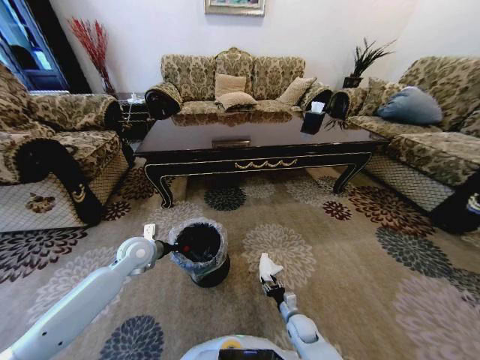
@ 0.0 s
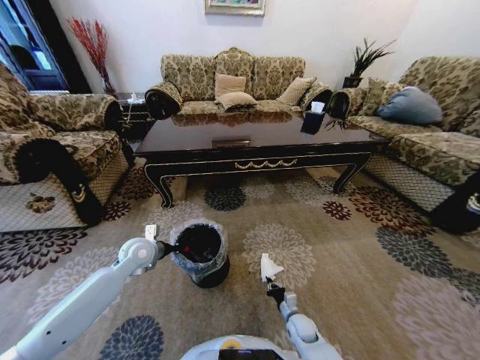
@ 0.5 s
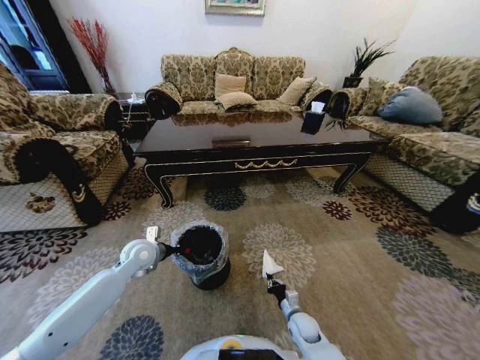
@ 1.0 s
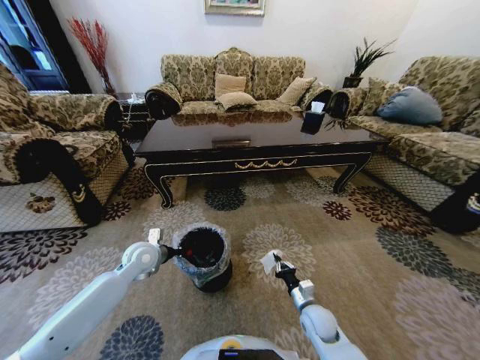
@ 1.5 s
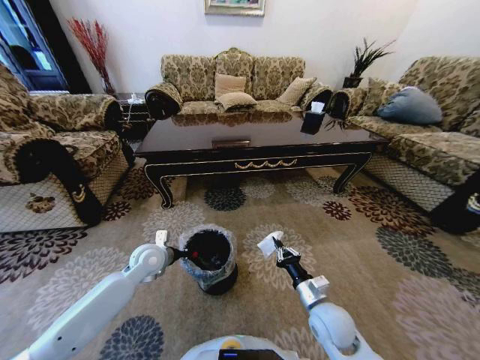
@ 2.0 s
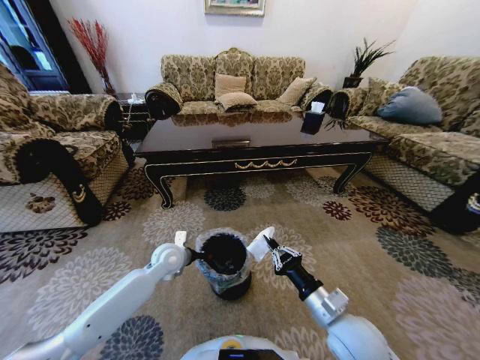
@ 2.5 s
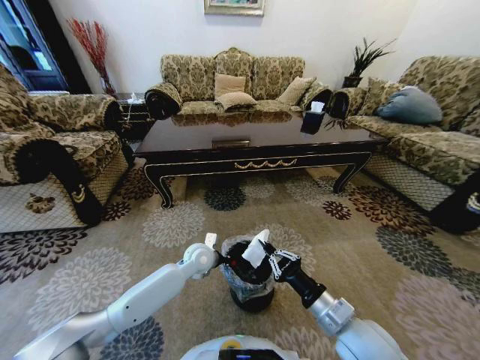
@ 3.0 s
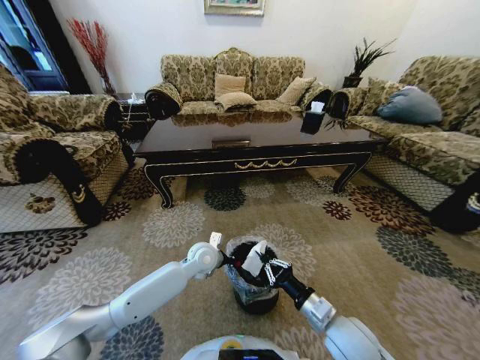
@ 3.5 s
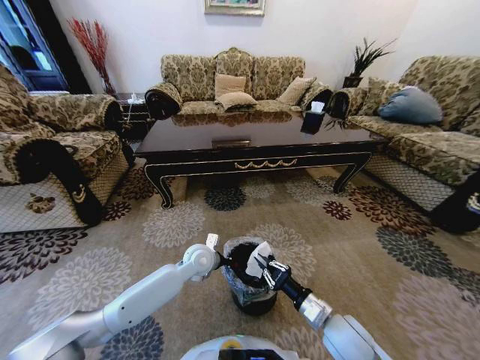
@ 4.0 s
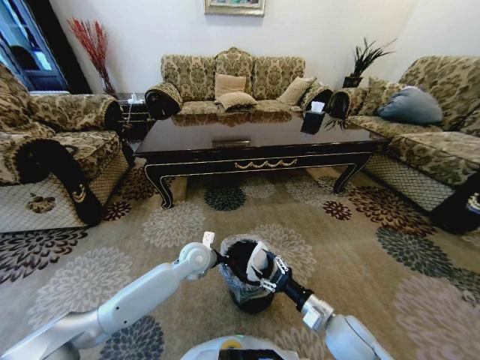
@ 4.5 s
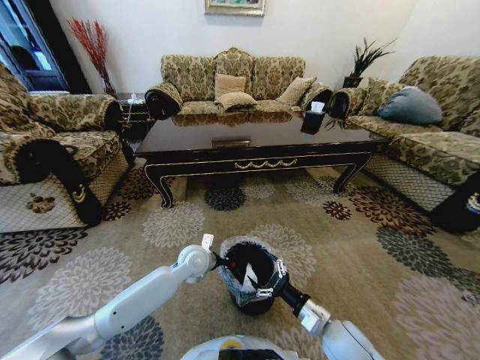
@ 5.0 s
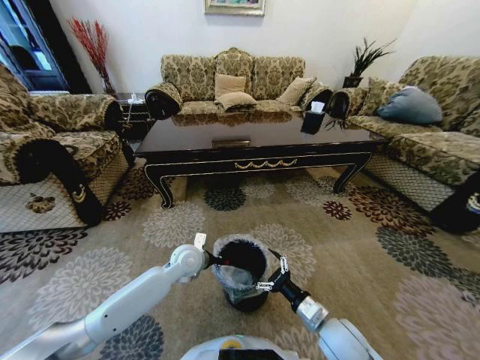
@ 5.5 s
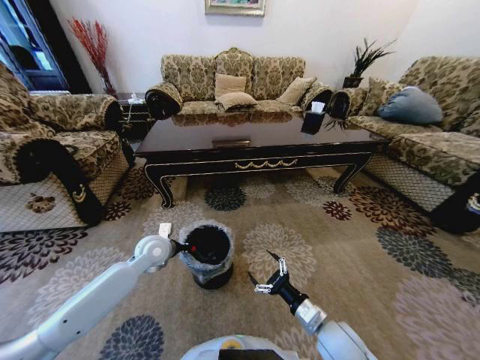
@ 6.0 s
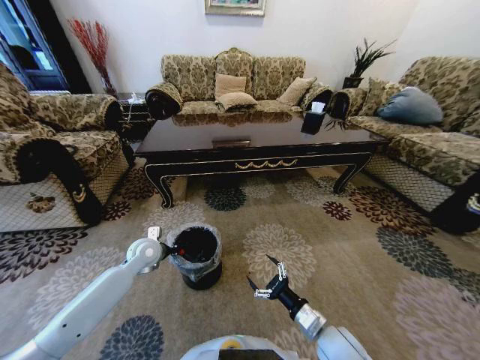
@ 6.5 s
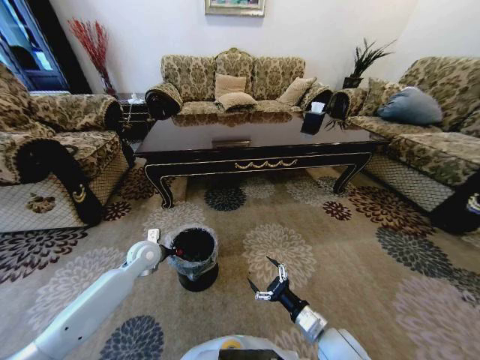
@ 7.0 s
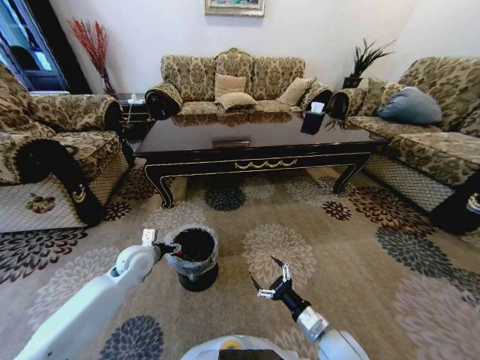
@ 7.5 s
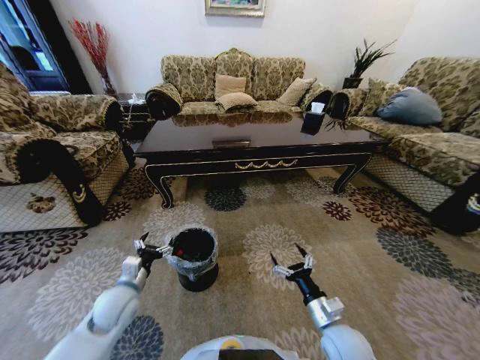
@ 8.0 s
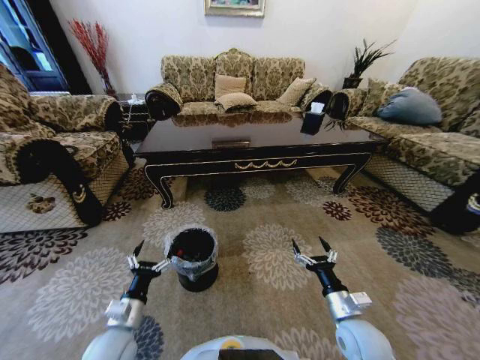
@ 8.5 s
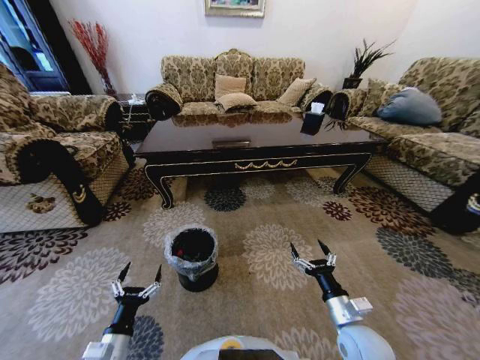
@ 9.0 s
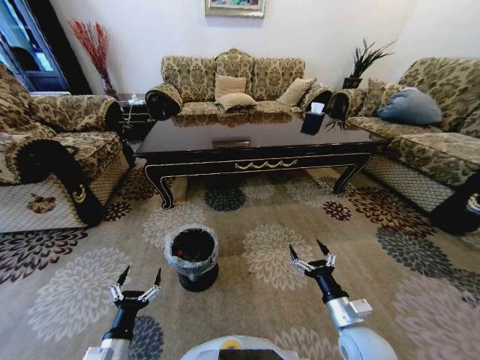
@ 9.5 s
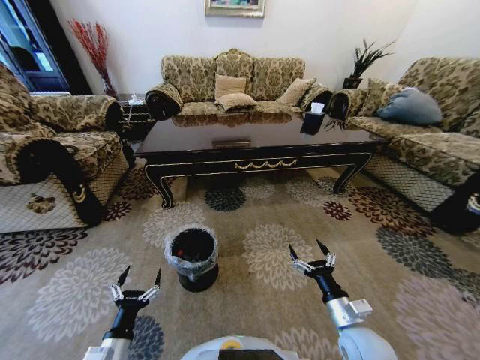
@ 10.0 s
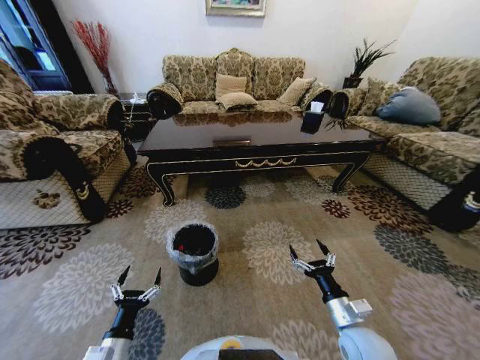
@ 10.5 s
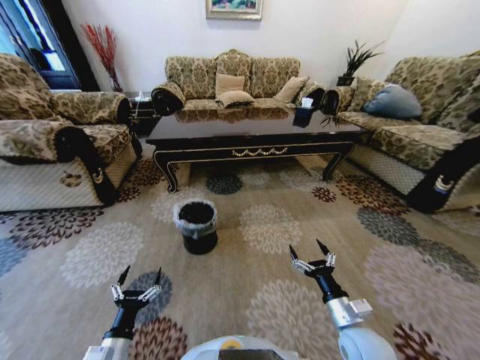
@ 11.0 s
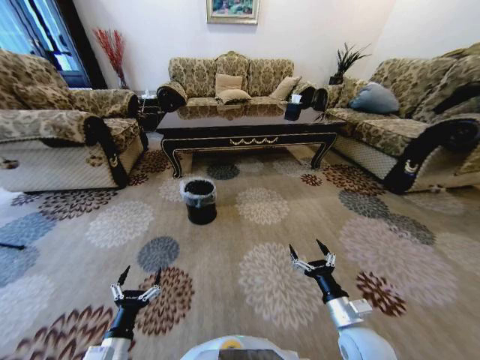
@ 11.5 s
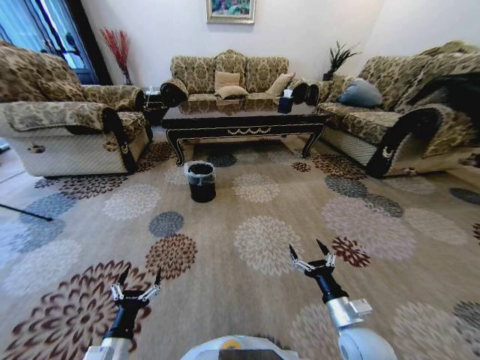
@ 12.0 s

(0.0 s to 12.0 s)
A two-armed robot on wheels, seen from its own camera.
Task of the whole recording: Move to the front of the table and pick up the trash from the floor, then place it into the trash bin.
0.0 s - 2.0 s: The right gripper moves upward, roughly 20 cm, and closes.
2.0 s - 4.0 s: The right gripper travels upward and back again, some 10 cm each way; the left gripper is displaced to the right by some 15 cm.
4.0 s - 6.0 s: The right gripper opens its fingers; the left gripper shifts about 15 cm to the left.
6.0 s - 8.0 s: The left gripper shifts roughly 15 cm backward, and opens up.
8.0 s - 10.0 s: The left gripper goes about 15 cm backward.

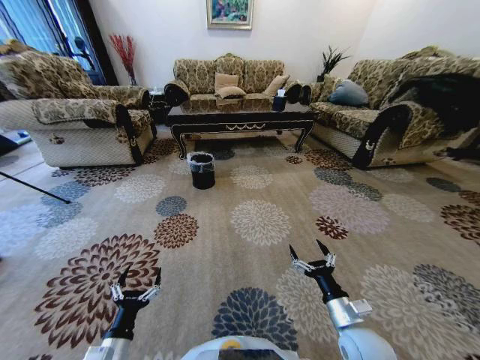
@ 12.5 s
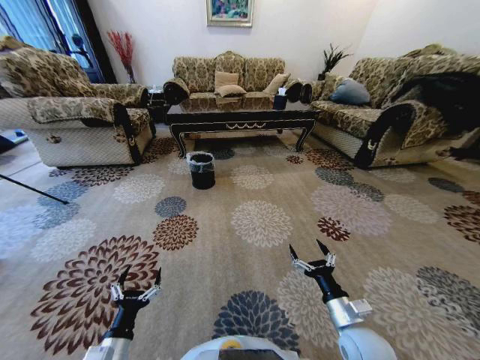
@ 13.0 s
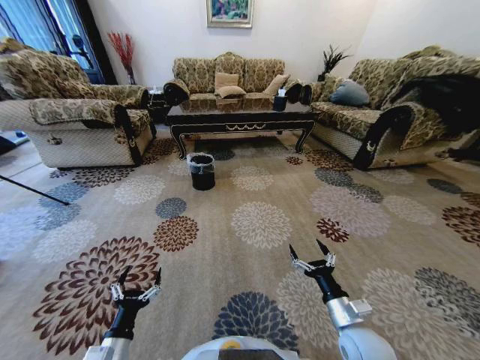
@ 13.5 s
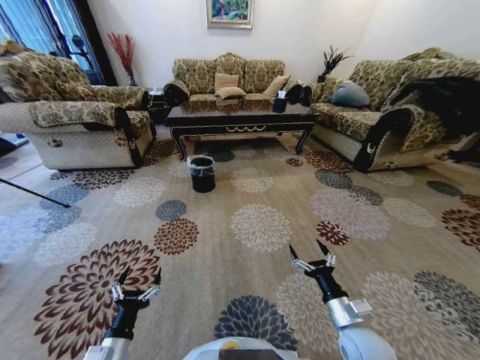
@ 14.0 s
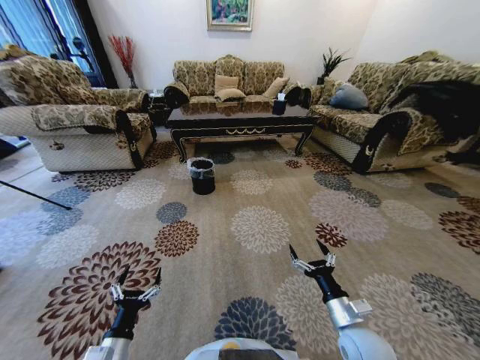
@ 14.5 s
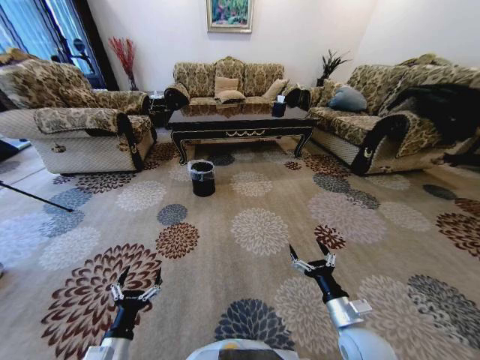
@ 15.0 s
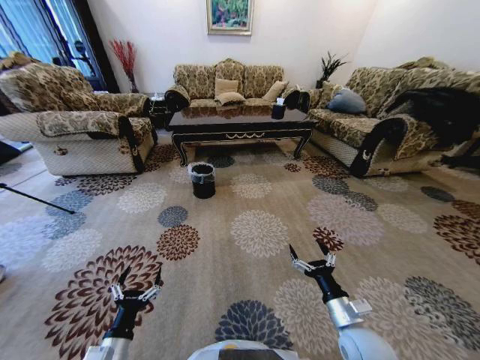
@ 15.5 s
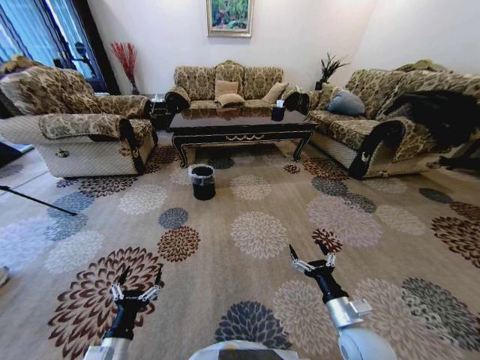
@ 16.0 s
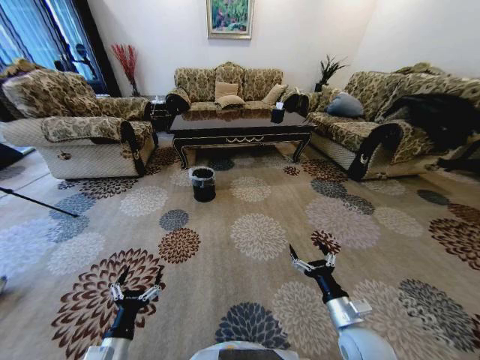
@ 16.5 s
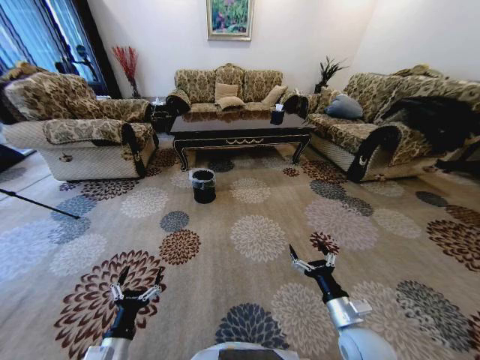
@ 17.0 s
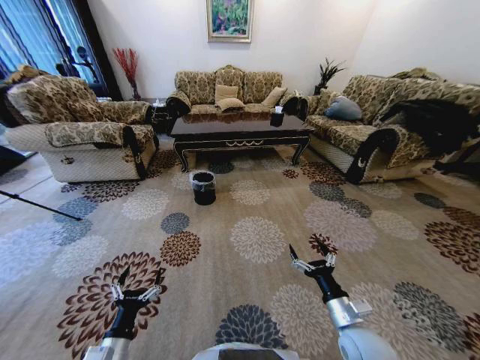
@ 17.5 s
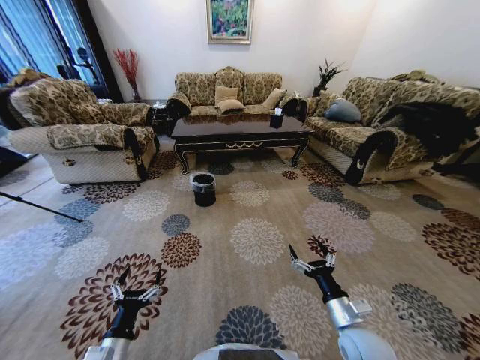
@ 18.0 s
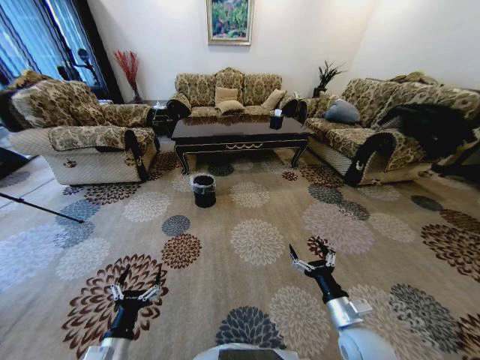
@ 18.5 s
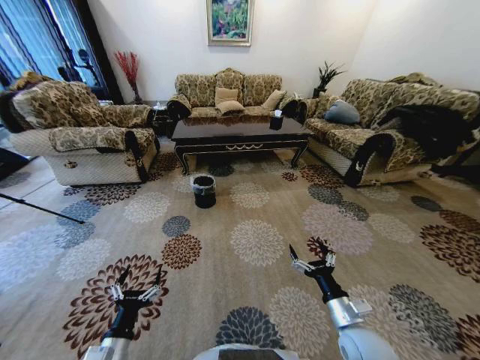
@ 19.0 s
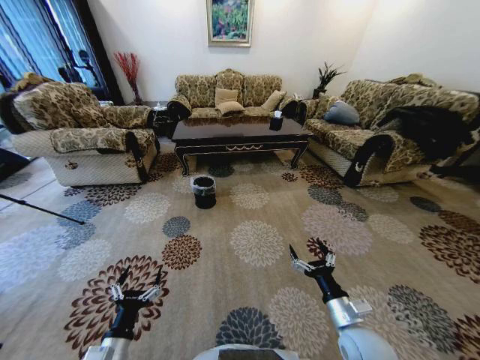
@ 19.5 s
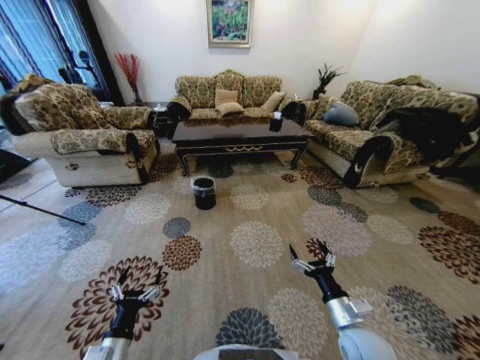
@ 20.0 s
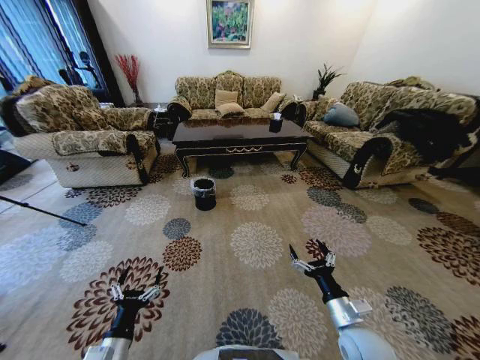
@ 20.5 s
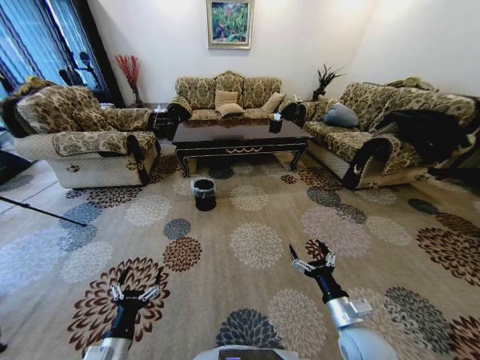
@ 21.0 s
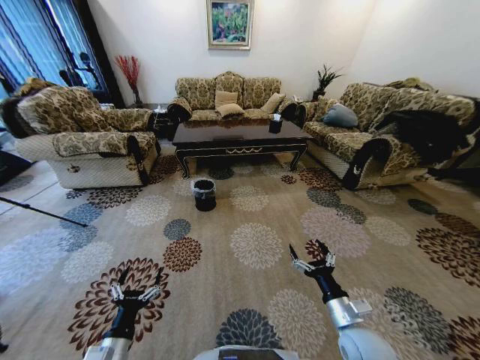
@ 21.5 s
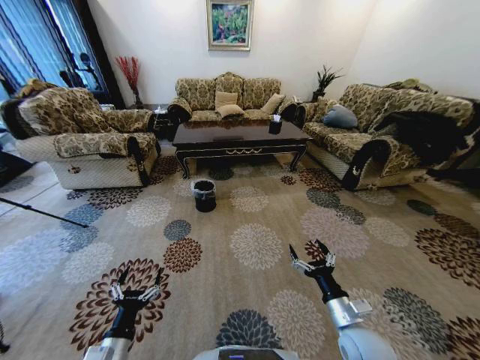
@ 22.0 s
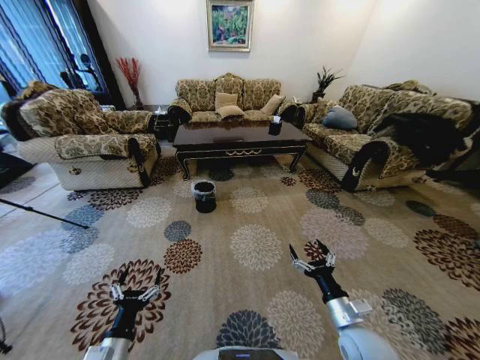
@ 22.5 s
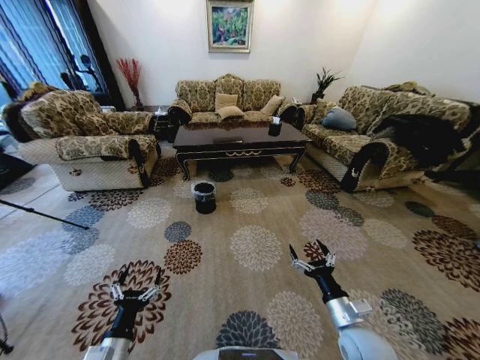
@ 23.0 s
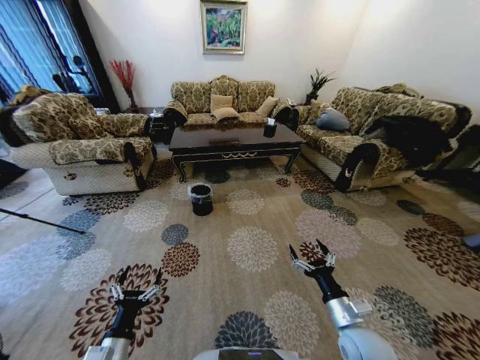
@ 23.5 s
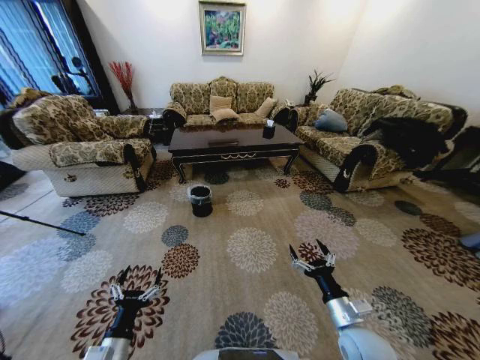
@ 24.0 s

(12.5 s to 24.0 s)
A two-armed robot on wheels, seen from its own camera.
Task of the whole recording: Move to the front of the table and pick up the trash from the floor, then place it into the trash bin.
18.5 s - 22.0 s: Neither gripper changes place.

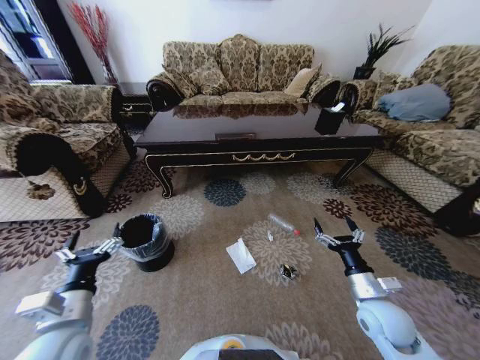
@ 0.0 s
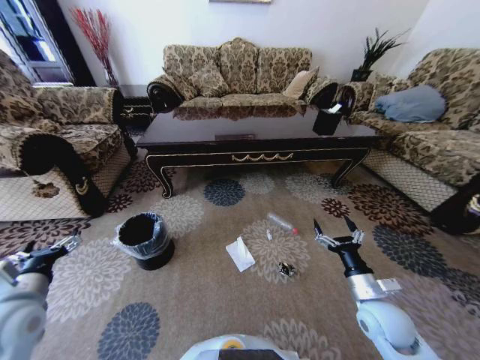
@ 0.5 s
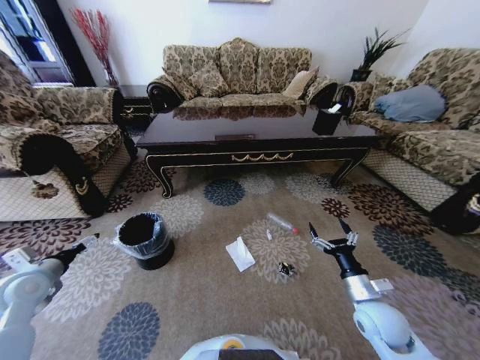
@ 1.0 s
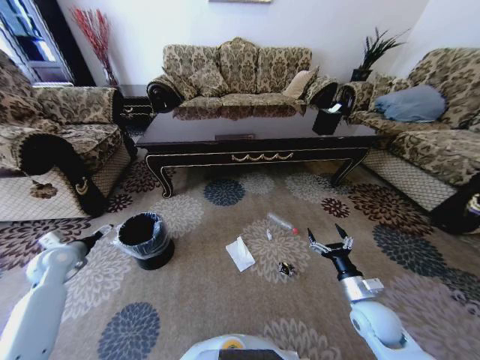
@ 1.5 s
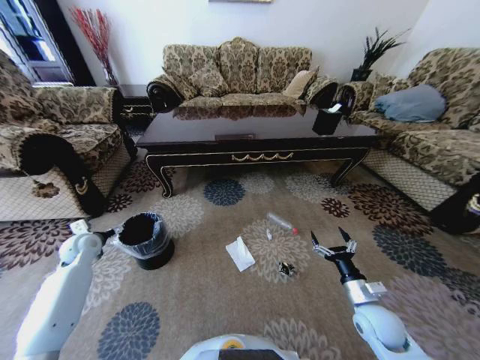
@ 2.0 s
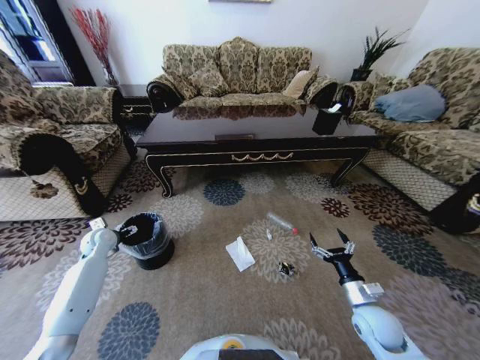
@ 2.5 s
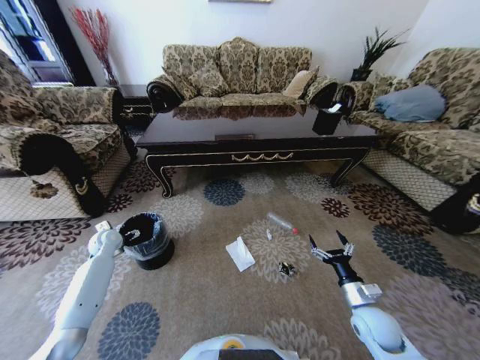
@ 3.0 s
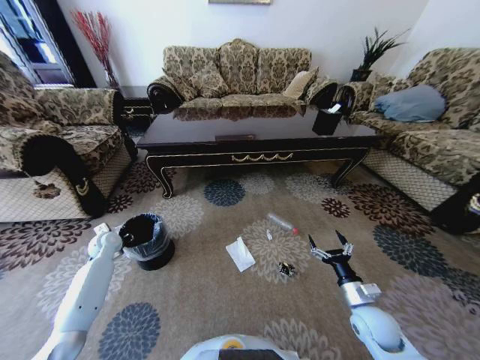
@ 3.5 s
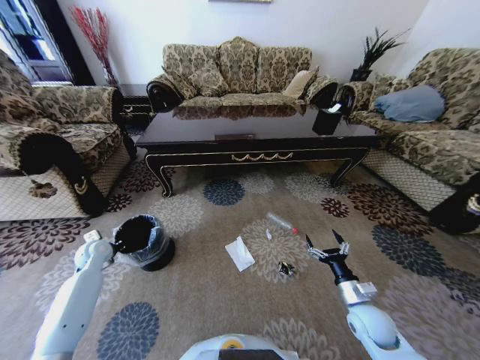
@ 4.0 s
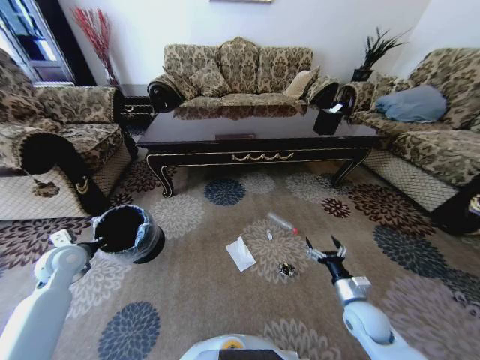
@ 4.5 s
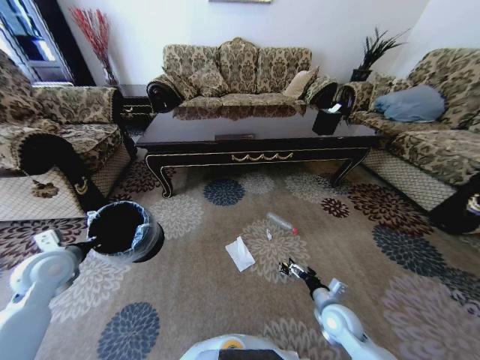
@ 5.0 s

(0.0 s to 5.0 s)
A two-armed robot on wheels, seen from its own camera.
Task of the whole recording: Move to the front of the table and pick up the trash from the floor, then place it into the trash bin.
0.0 s - 2.5 s: The right gripper is displaced downward by some 5 cm, while the left gripper is displaced forward and to the left by approximately 30 cm.
2.5 s - 5.0 s: The left gripper goes approximately 15 cm backward and upward, and closes; the right gripper goes roughly 5 cm to the left.
